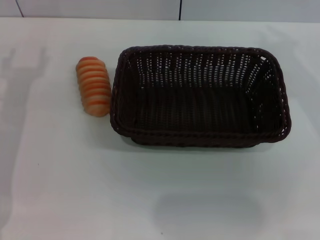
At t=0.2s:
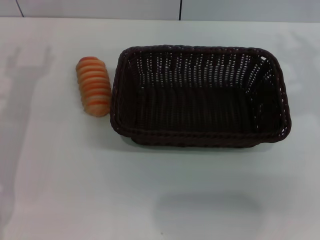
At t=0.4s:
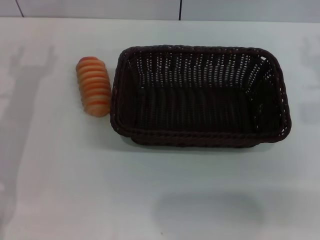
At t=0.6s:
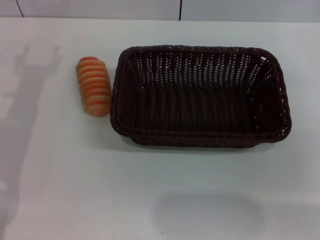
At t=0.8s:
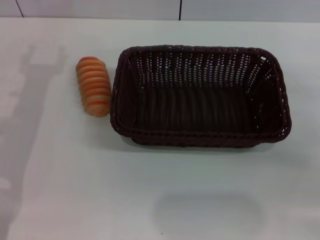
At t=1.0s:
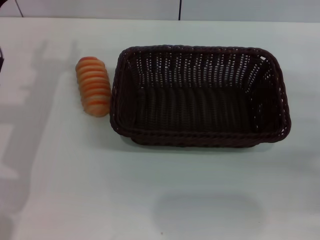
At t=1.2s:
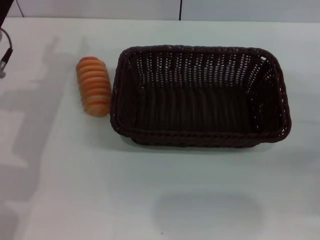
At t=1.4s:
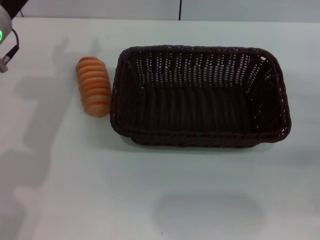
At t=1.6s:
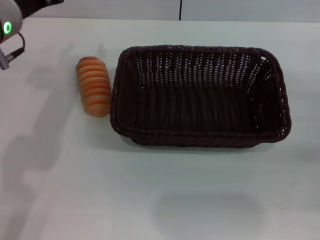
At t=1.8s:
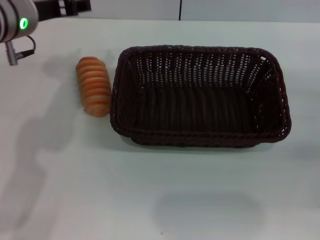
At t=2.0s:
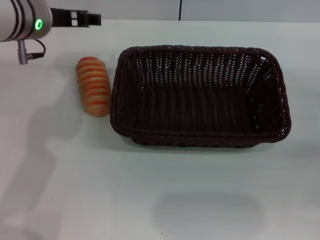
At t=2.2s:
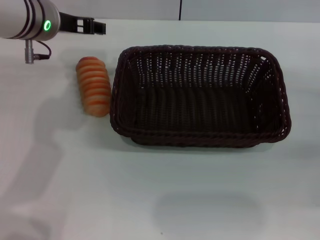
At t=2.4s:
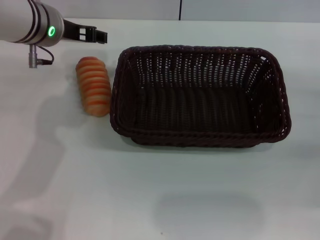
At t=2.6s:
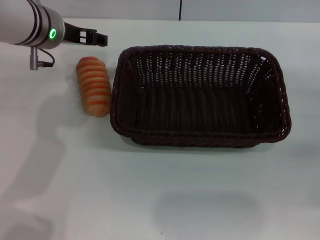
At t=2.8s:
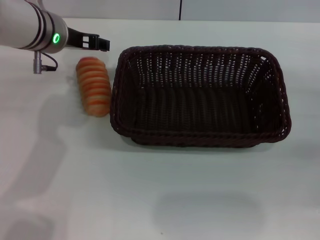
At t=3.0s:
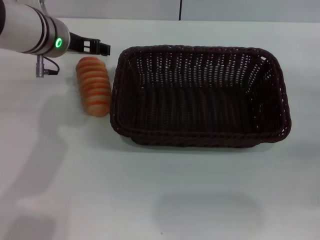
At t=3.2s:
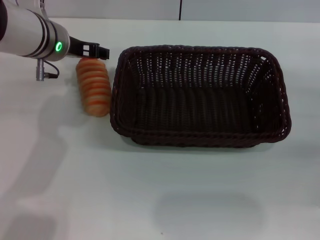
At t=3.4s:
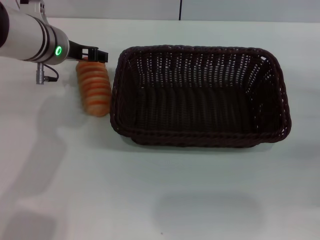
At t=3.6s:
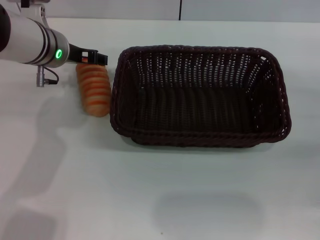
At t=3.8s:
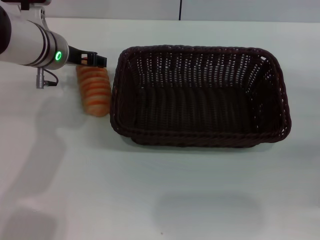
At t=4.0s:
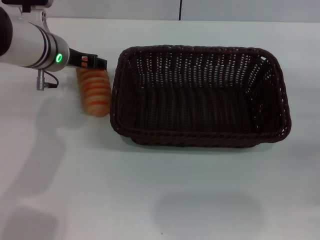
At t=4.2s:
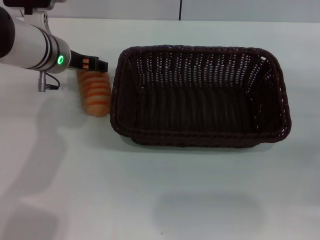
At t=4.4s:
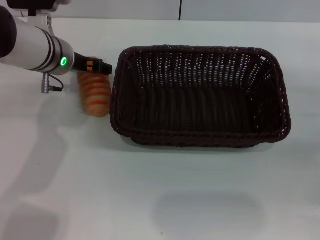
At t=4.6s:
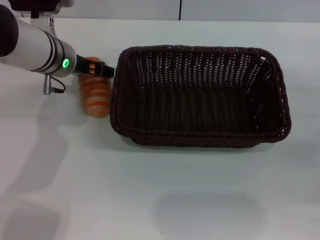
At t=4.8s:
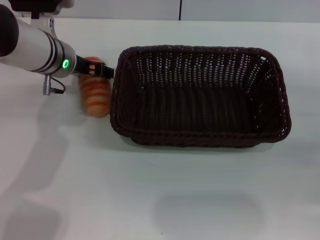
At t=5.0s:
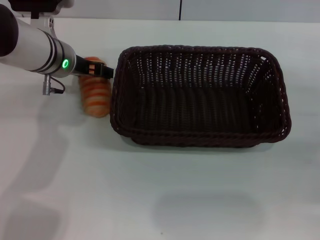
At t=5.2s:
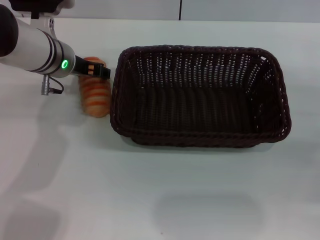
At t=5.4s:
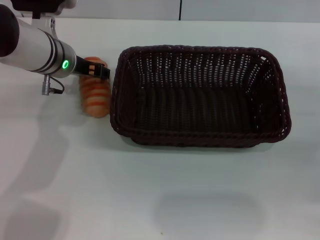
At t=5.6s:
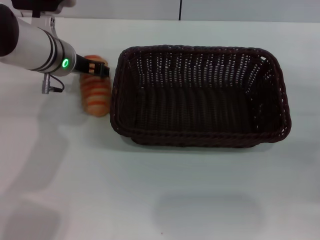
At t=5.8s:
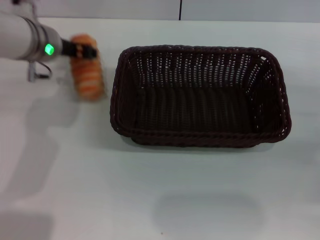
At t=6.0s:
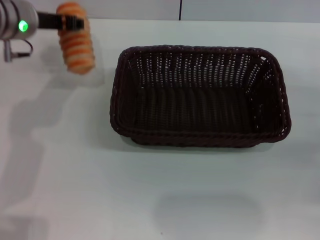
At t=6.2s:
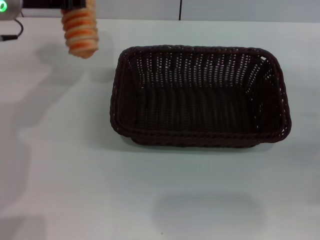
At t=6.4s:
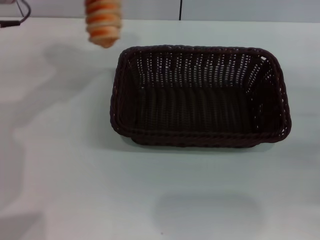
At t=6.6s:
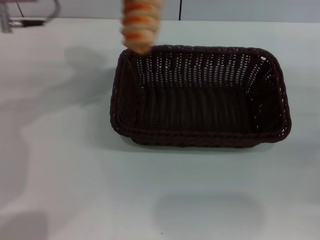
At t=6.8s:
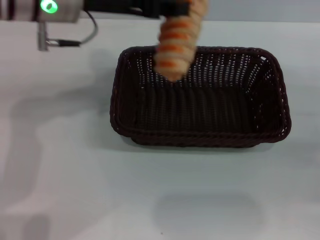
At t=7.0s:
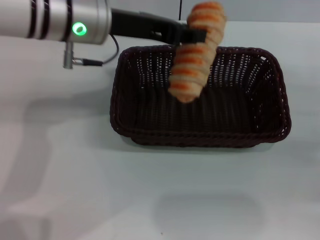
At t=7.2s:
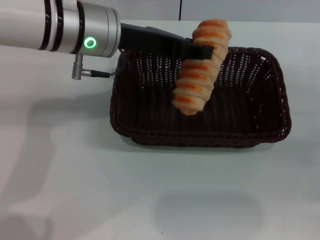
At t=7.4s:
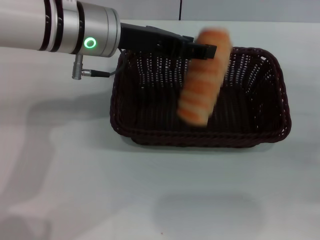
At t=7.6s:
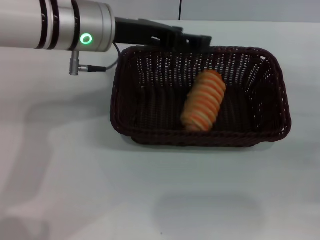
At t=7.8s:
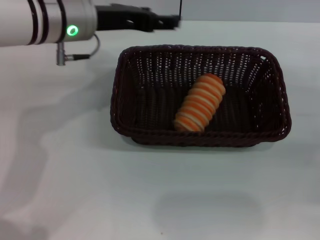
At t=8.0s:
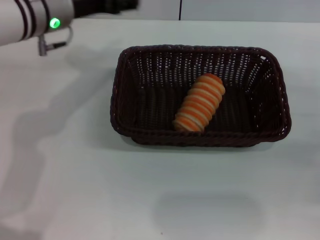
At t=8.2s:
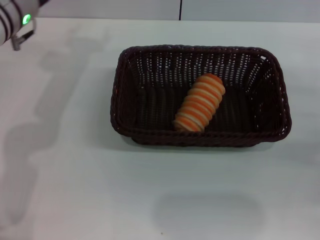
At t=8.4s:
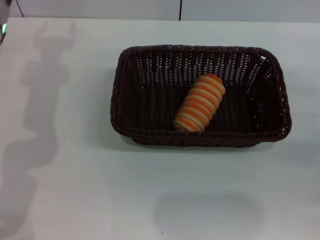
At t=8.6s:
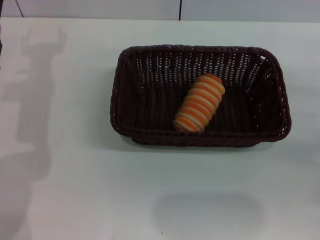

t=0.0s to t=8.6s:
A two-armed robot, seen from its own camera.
Step, t=0.0s to t=6.0s: Pick up the long bread with the left gripper.
Step, t=6.2s to t=7.6s: Place the long bread into the dark basket with the left gripper.
t=0.0s to t=1.4s: The left gripper heads upward and to the right, covering some 10 cm. The right gripper shifts approximately 20 cm downward and to the right.
t=1.4s to t=2.8s: The left gripper moves forward, about 5 cm.
t=2.8s to t=4.4s: There are only small adjustments of the grippers.
t=4.4s to t=5.8s: The left gripper closes up.
t=5.8s to t=7.2s: The left gripper travels to the right and upward by some 10 cm, and closes.
t=7.2s to t=8.6s: The left gripper shifts some 15 cm to the left and downward, and opens its fingers.
